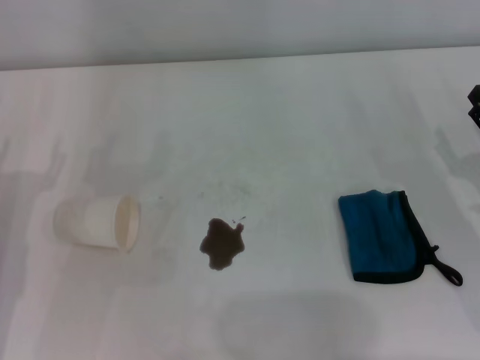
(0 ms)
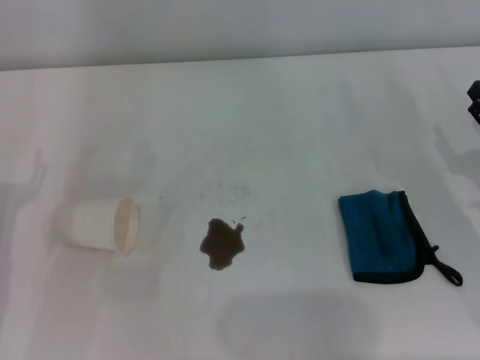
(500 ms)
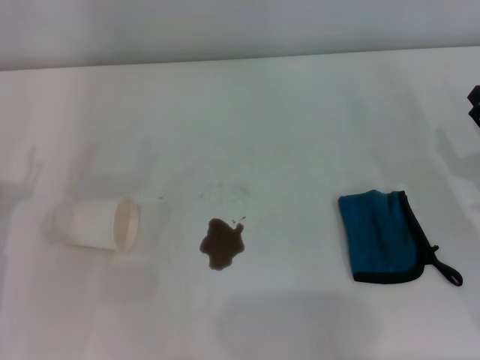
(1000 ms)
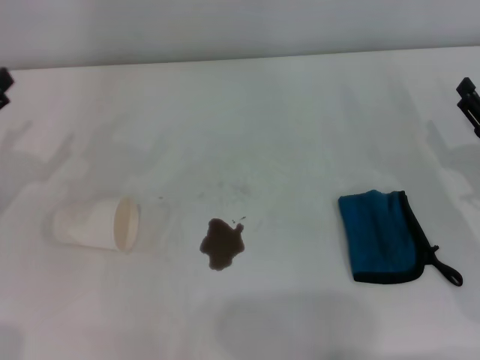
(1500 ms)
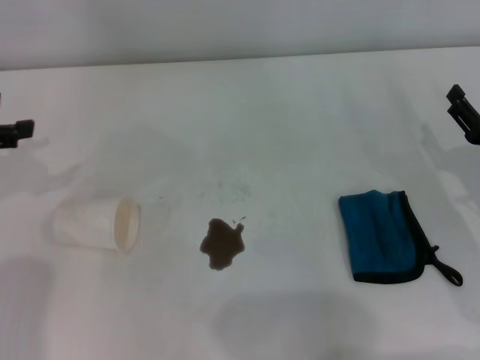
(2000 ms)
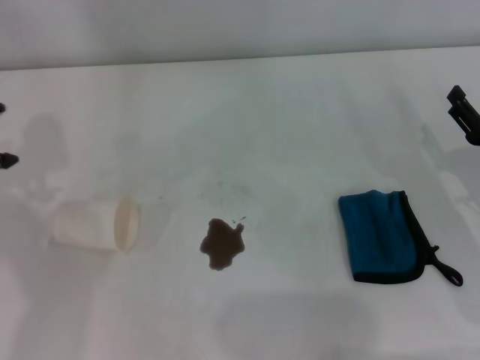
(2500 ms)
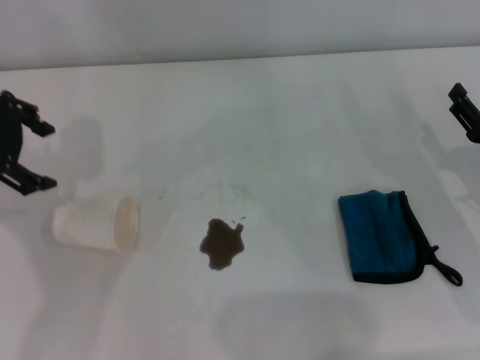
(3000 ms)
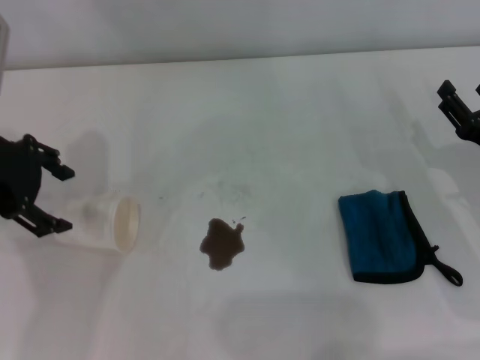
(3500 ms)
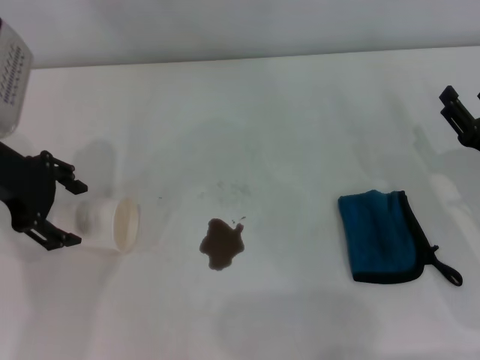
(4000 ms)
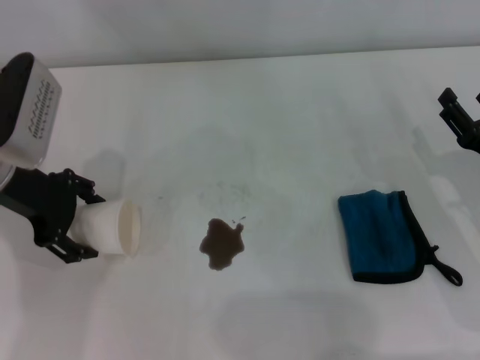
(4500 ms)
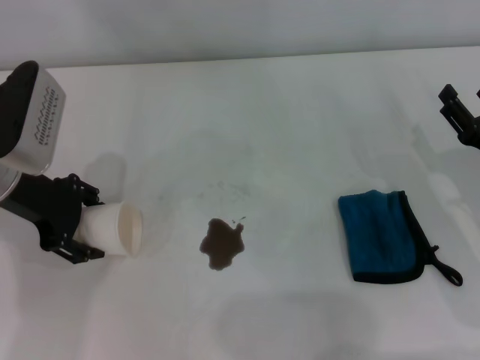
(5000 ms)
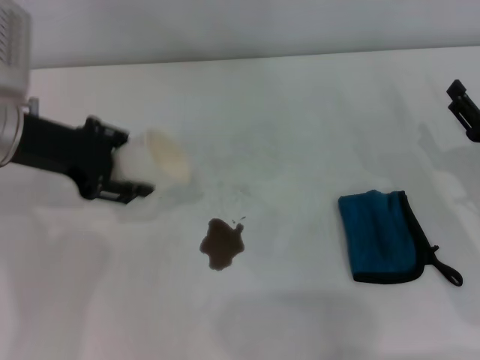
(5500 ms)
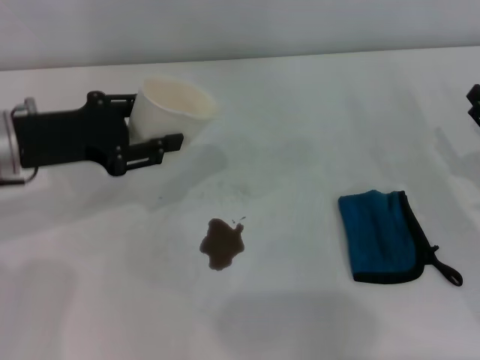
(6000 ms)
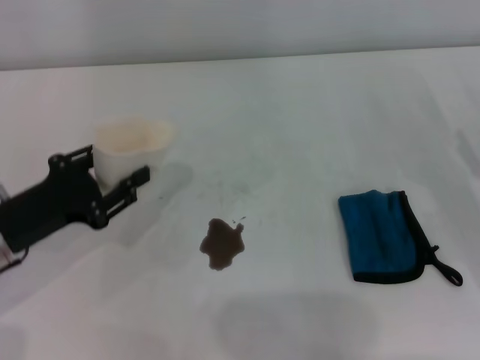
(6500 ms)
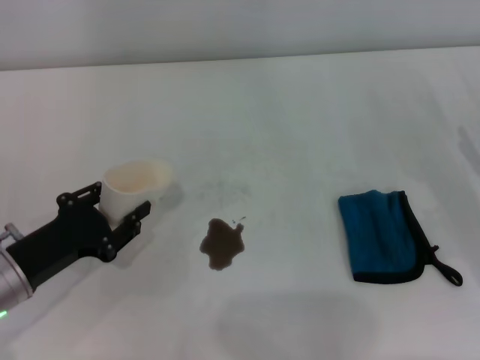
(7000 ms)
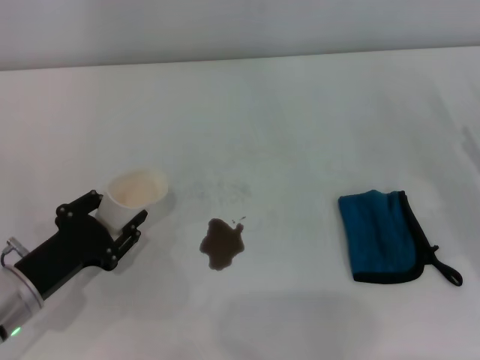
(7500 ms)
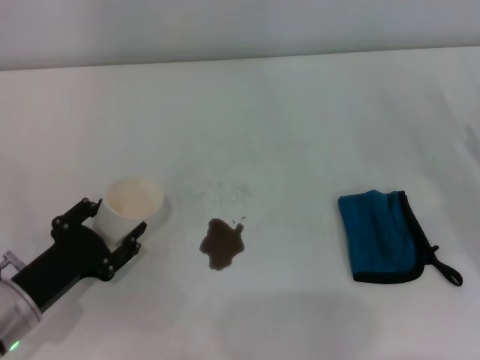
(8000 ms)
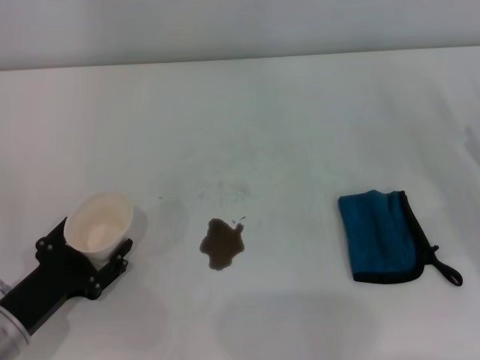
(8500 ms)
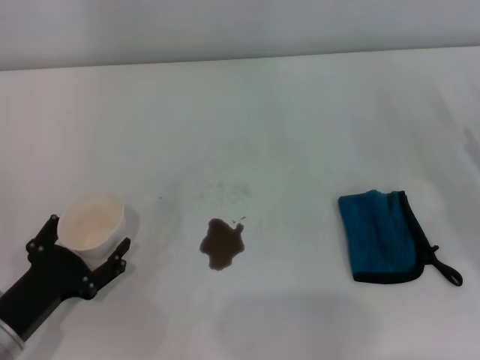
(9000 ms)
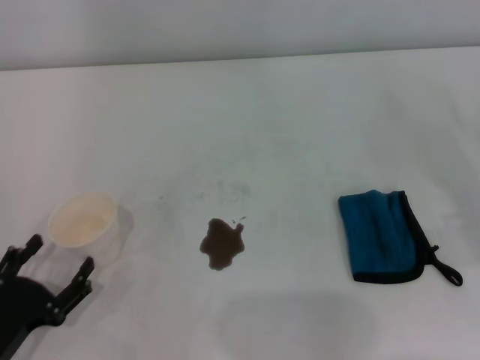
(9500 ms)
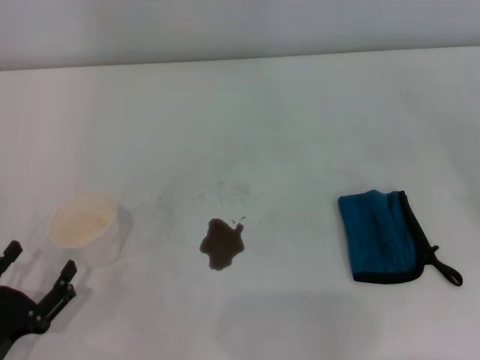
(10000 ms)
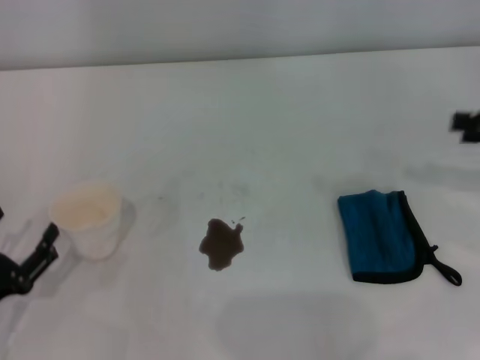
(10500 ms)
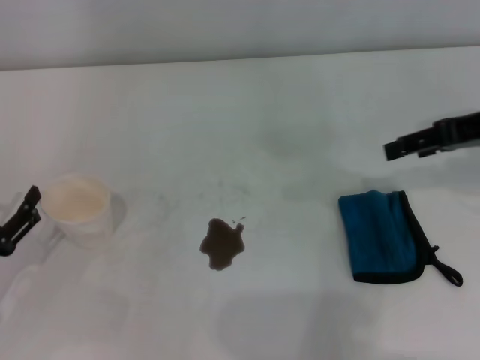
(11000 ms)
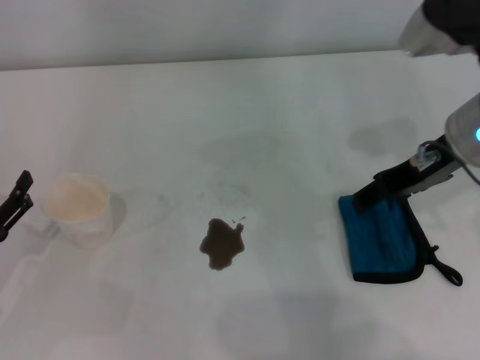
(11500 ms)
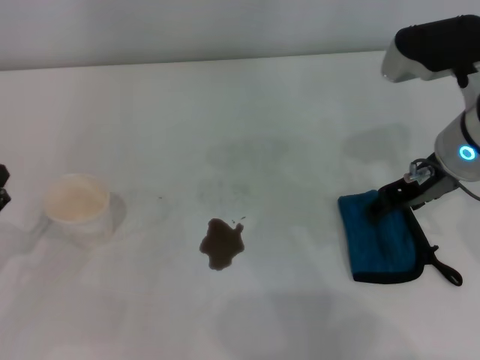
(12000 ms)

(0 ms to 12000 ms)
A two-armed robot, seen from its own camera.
Step, 0 ms - 4500 ms: Grasp the paper cup with the left gripper.
Step, 5000 ms - 8500 ms: Stand the paper cup upright with the left gripper.
0 ms - 2000 ms: The left gripper goes roughly 15 cm upward, forward and to the left.
2000 ms - 4000 ms: The left gripper shifts approximately 10 cm to the right.
4000 ms - 6000 ms: The left gripper closes up.
6000 ms - 8000 ms: The left gripper goes some 20 cm downward and backward.
8000 ms - 10000 ms: The left gripper goes approximately 10 cm backward, and opens.
10000 ms - 12000 ms: The left gripper shifts roughly 5 cm forward. Meanwhile the right gripper travels to the left by about 25 cm.

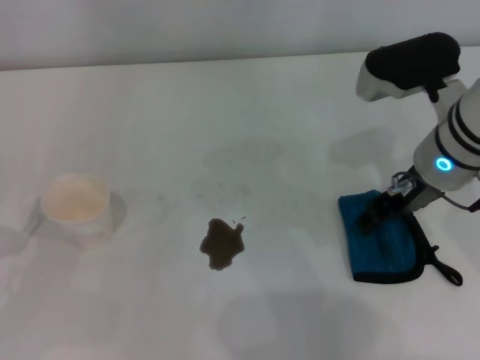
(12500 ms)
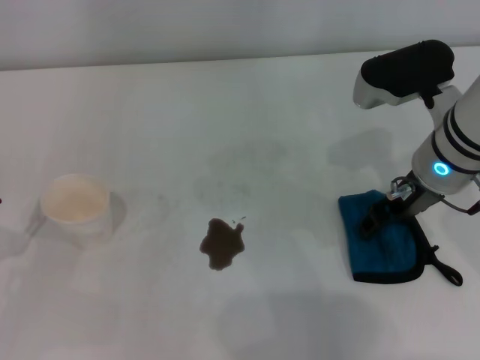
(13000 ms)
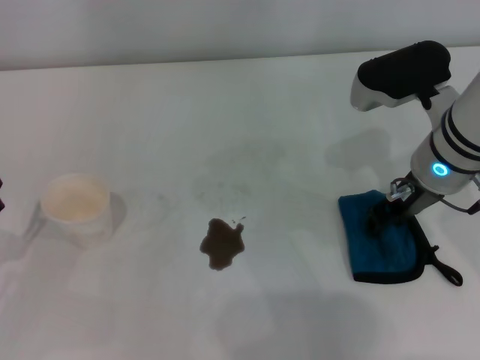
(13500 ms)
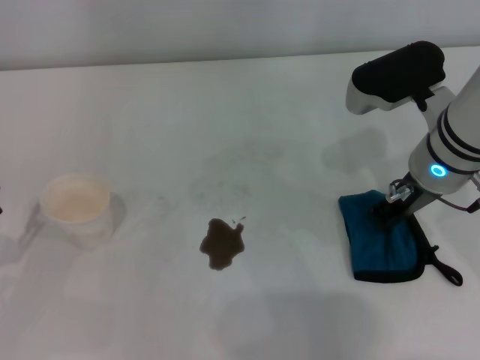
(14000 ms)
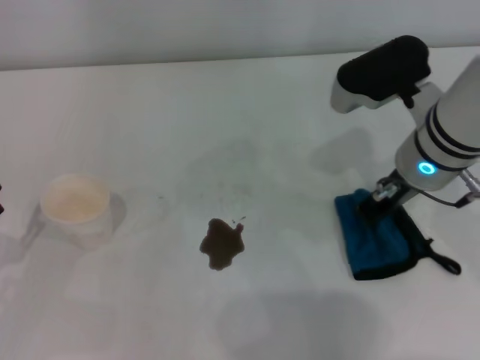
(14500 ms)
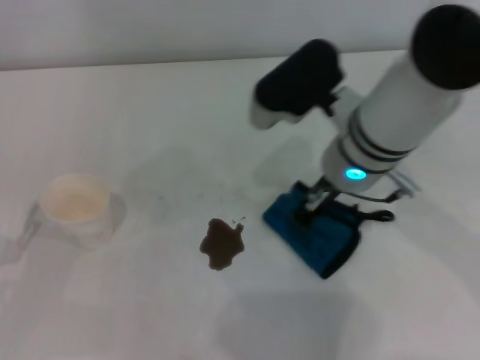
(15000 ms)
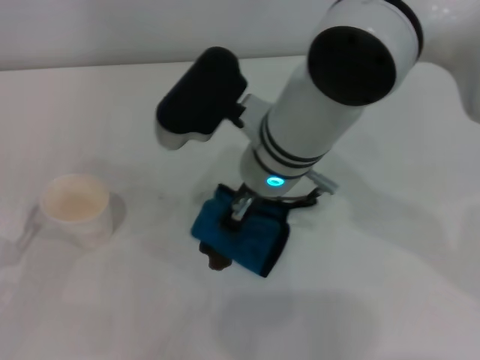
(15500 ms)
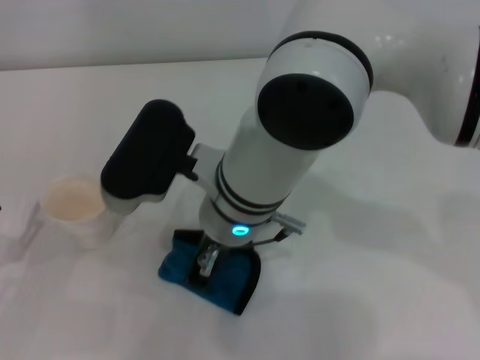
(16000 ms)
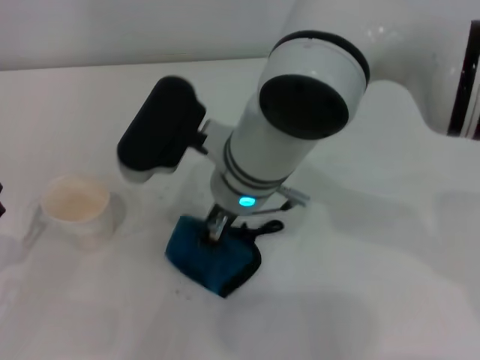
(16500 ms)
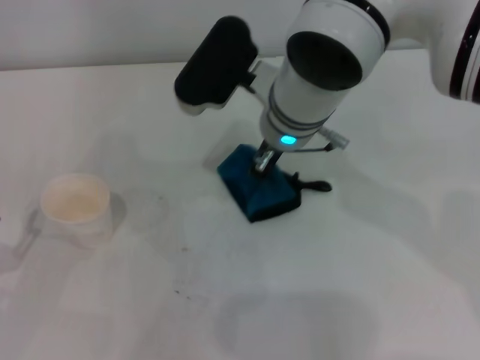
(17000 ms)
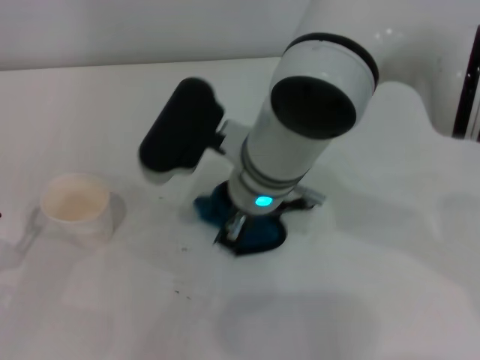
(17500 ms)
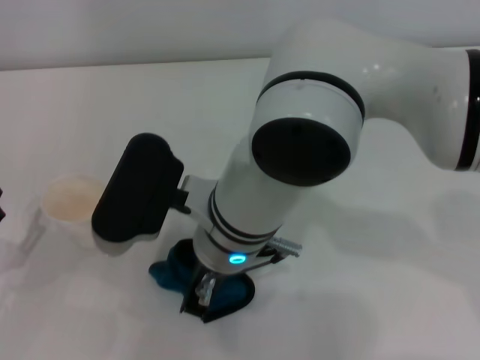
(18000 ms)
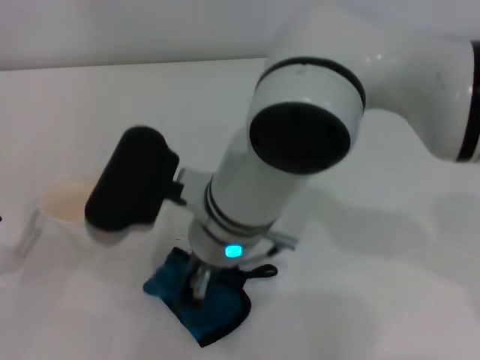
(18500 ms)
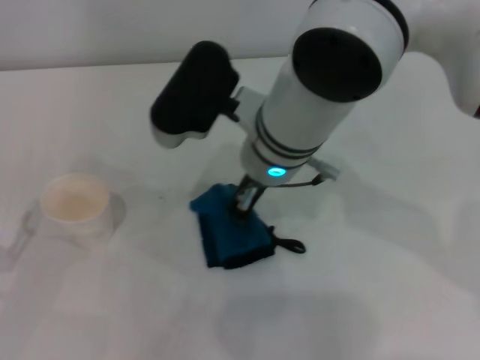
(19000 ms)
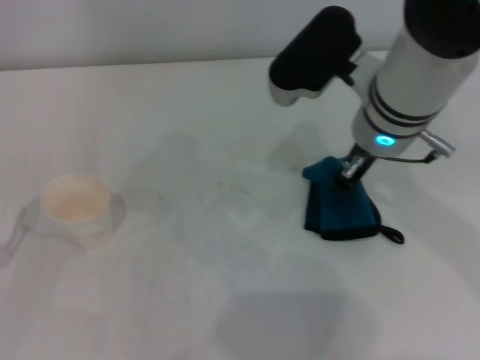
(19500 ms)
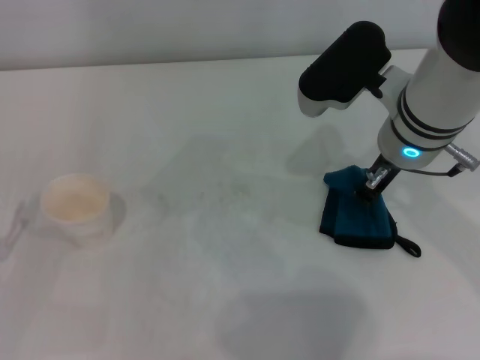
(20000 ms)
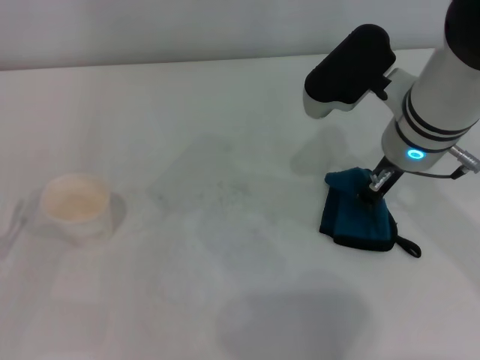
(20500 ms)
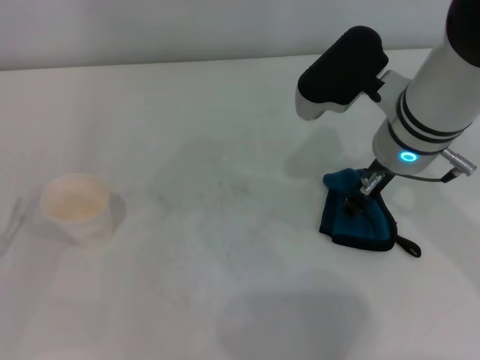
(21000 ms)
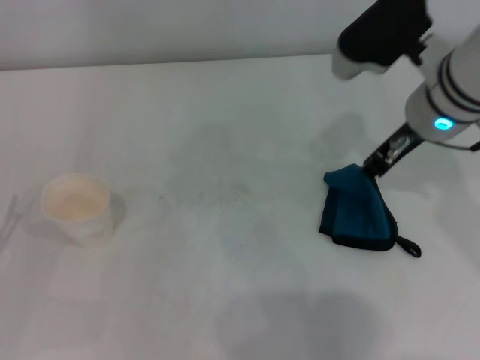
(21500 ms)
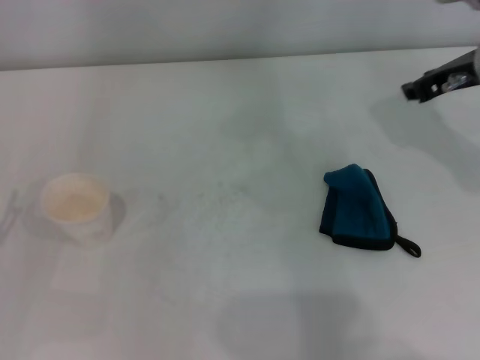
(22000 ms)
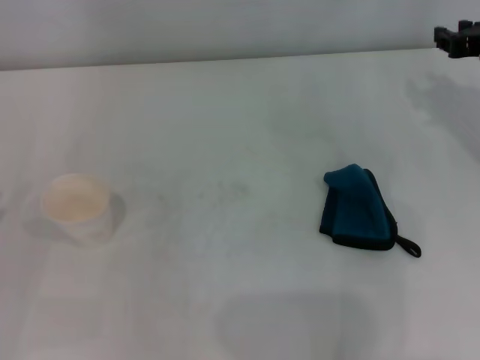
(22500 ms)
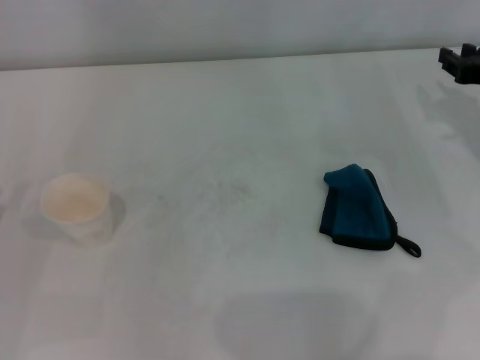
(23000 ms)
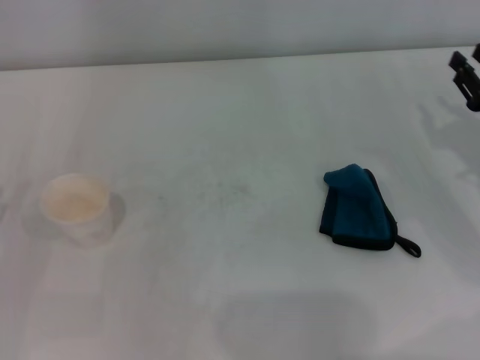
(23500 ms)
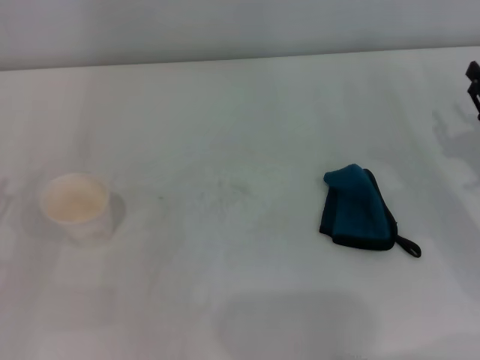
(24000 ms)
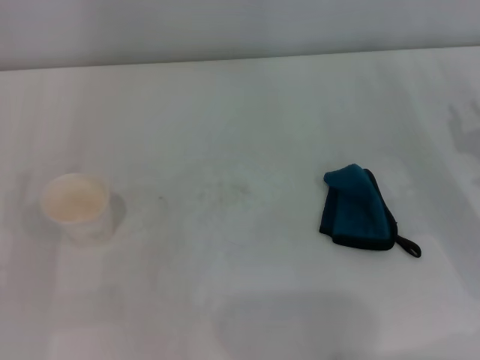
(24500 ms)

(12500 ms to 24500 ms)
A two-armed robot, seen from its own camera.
Step, 14500 ms - 20000 ms: Wipe the stains off the table with the right gripper.
12500 ms - 14500 ms: The right gripper closes.
14500 ms - 16500 ms: The right gripper is displaced to the left by about 15 cm.
18500 ms - 20500 ms: The right gripper is displaced to the right by some 15 cm.
20500 ms - 22500 ms: The right gripper heads to the right, covering roughly 15 cm, and opens up.
22500 ms - 24500 ms: The right gripper heads downward and backward, covering roughly 15 cm.

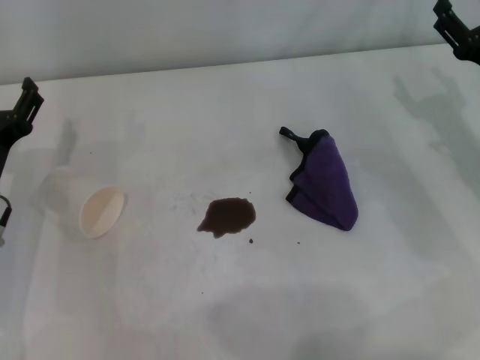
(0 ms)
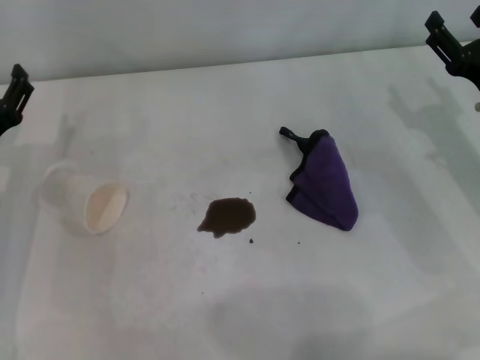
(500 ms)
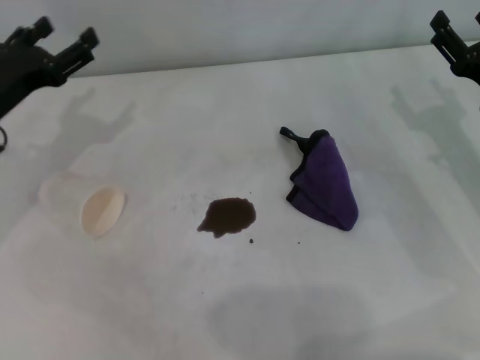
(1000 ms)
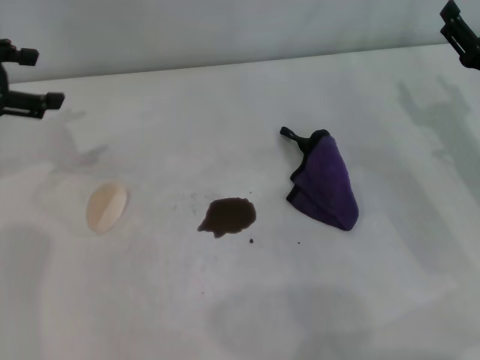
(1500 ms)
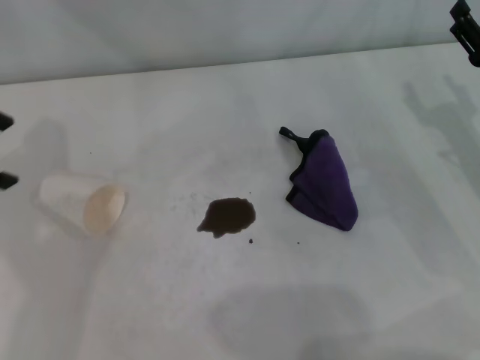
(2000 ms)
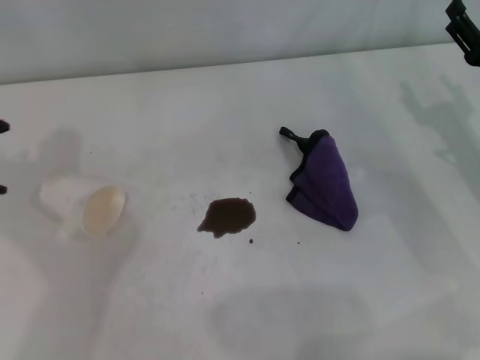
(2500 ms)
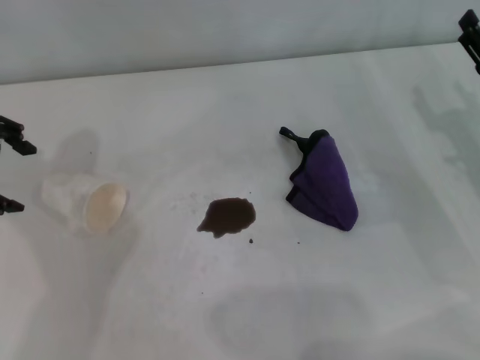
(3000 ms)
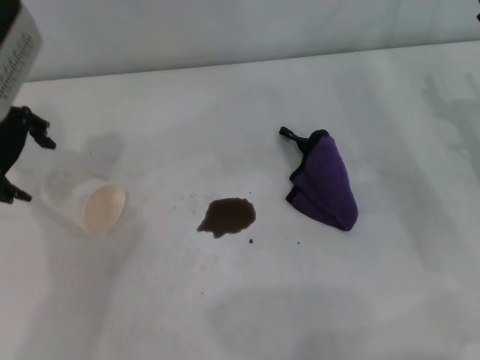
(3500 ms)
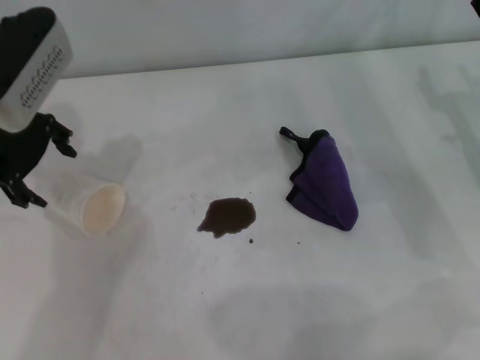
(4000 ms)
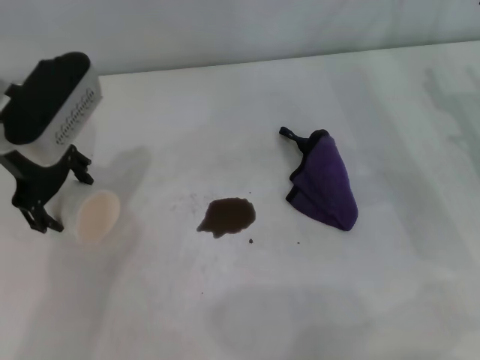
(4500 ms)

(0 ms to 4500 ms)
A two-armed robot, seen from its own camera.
0 ms - 2000 ms: The left gripper travels upward by some 20 cm.
2000 ms - 4500 ms: The left gripper is displaced to the right and downward by some 15 cm.
